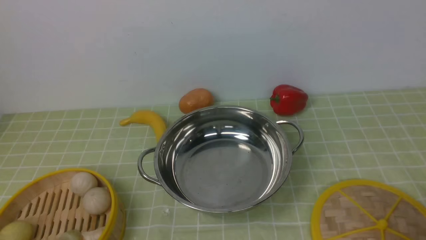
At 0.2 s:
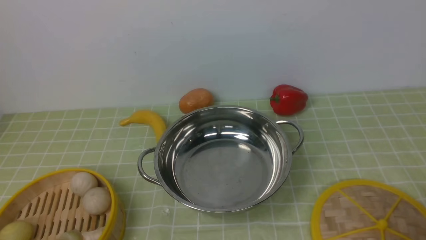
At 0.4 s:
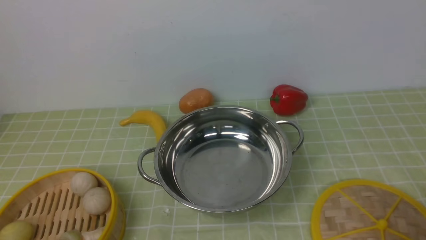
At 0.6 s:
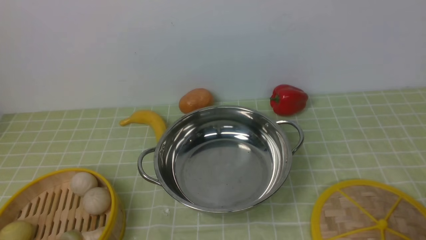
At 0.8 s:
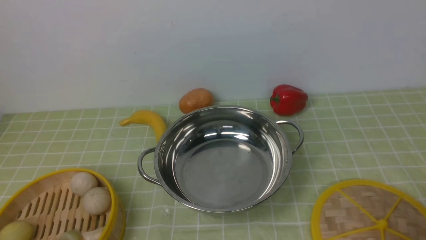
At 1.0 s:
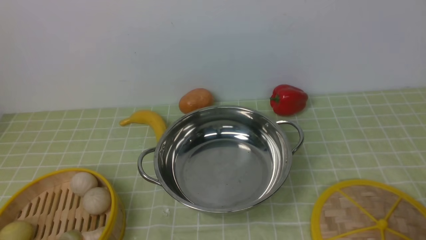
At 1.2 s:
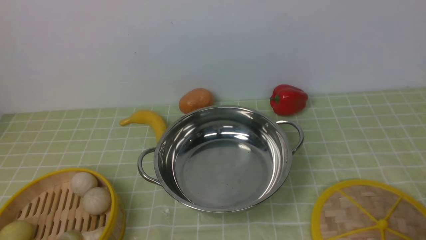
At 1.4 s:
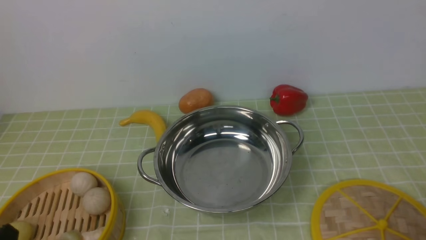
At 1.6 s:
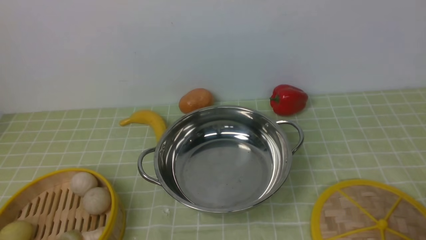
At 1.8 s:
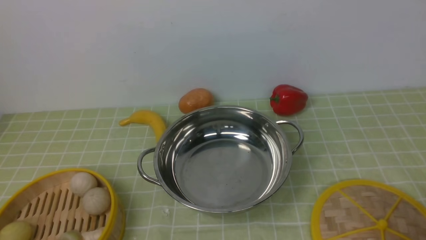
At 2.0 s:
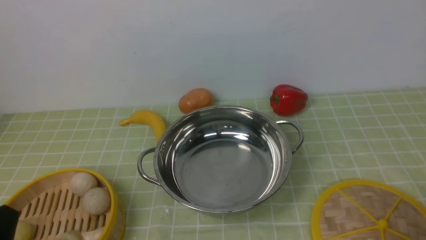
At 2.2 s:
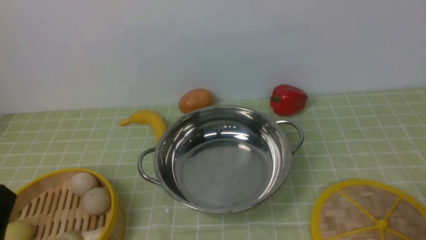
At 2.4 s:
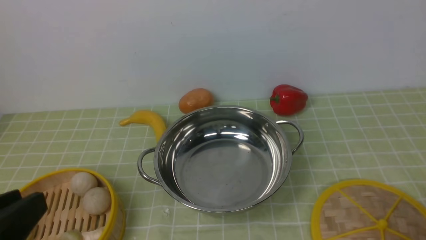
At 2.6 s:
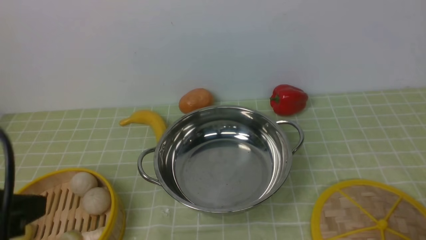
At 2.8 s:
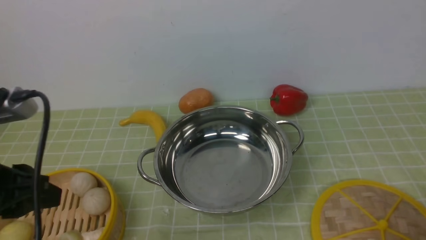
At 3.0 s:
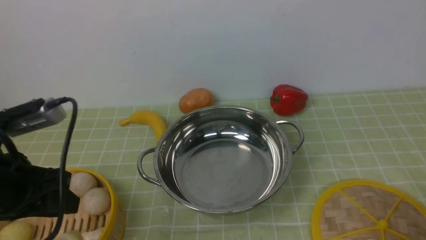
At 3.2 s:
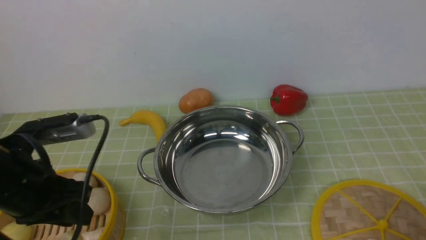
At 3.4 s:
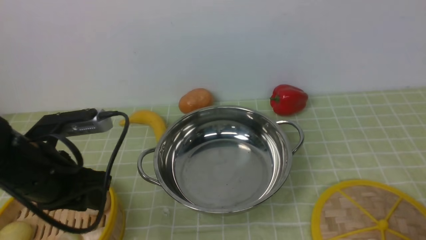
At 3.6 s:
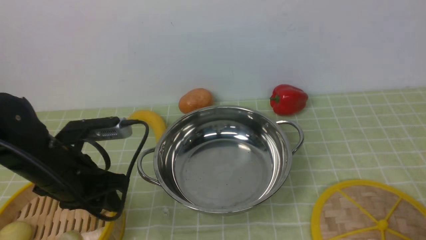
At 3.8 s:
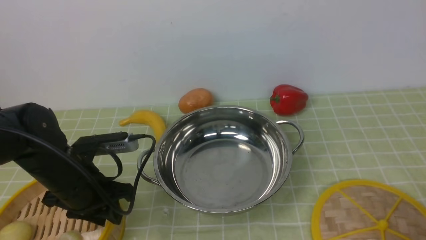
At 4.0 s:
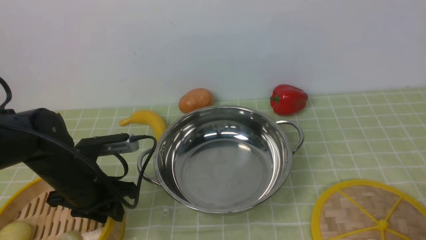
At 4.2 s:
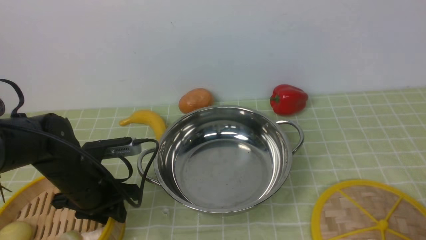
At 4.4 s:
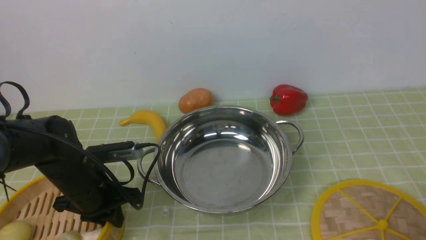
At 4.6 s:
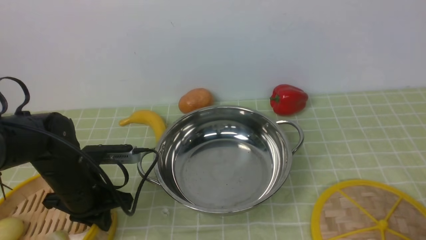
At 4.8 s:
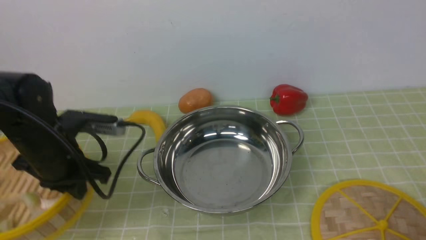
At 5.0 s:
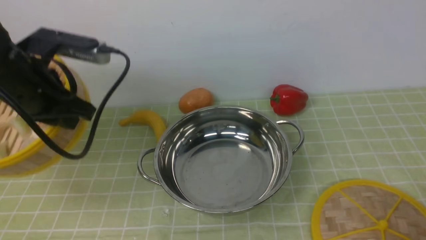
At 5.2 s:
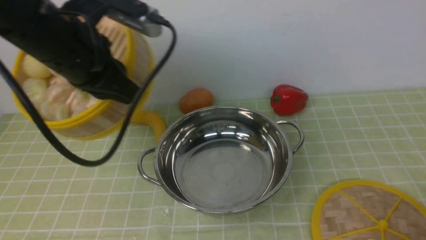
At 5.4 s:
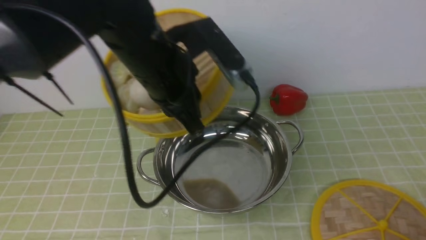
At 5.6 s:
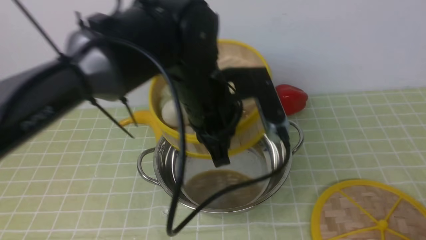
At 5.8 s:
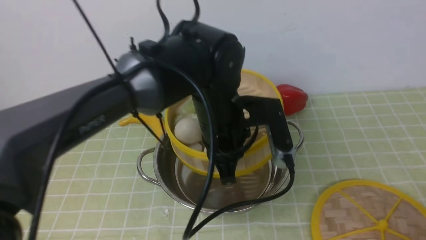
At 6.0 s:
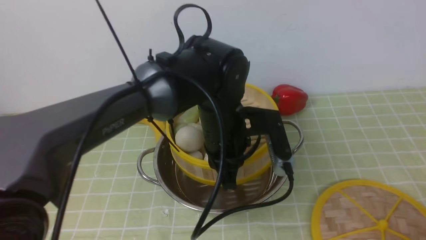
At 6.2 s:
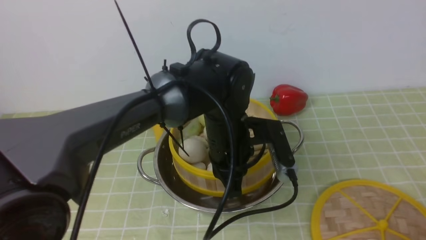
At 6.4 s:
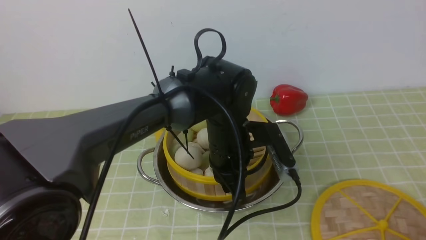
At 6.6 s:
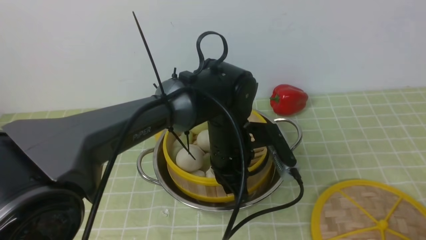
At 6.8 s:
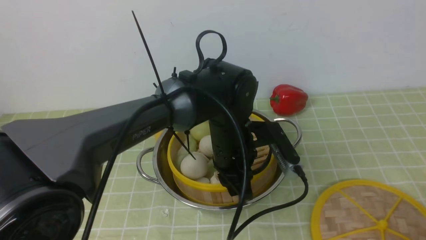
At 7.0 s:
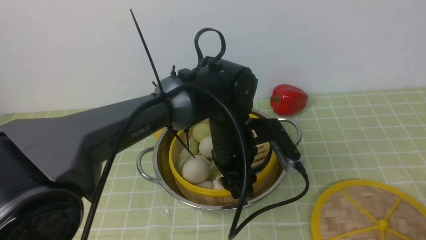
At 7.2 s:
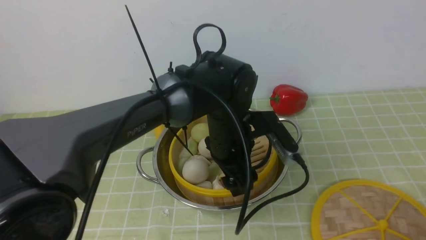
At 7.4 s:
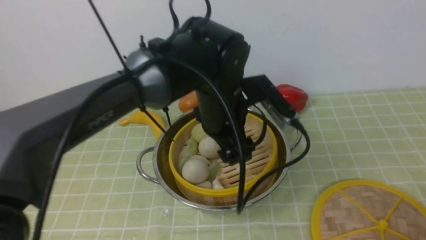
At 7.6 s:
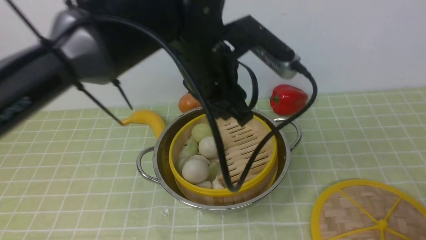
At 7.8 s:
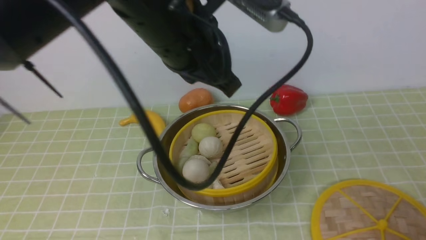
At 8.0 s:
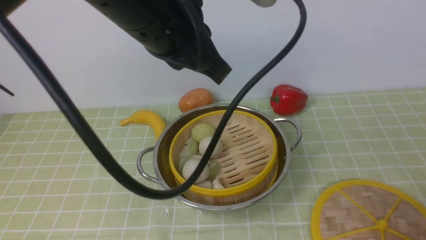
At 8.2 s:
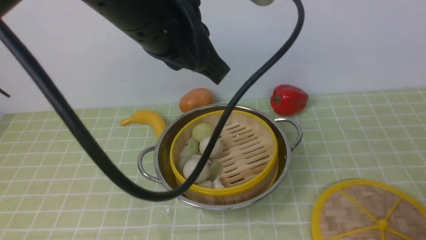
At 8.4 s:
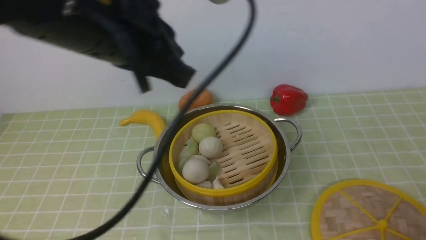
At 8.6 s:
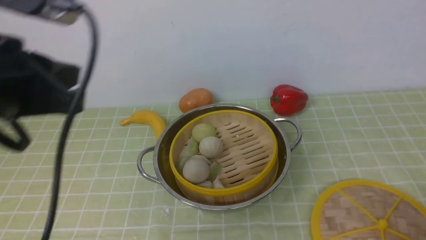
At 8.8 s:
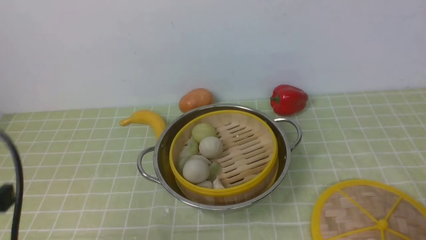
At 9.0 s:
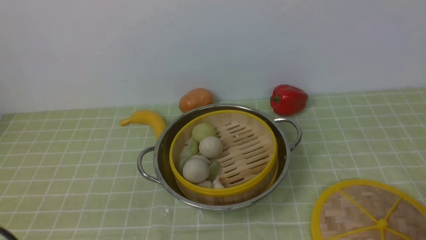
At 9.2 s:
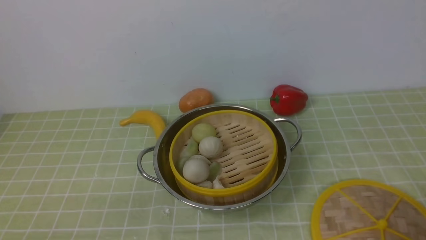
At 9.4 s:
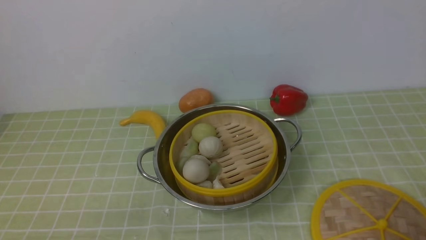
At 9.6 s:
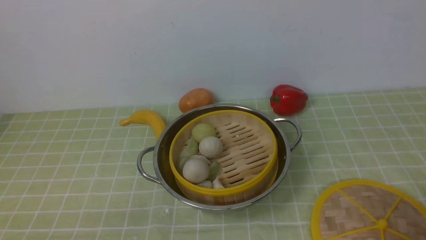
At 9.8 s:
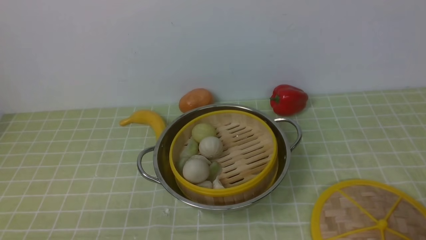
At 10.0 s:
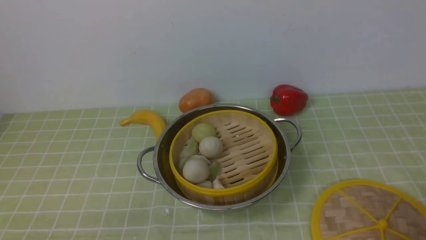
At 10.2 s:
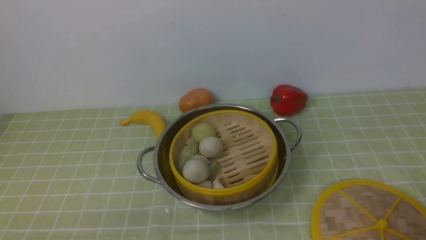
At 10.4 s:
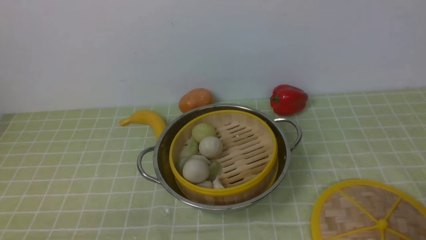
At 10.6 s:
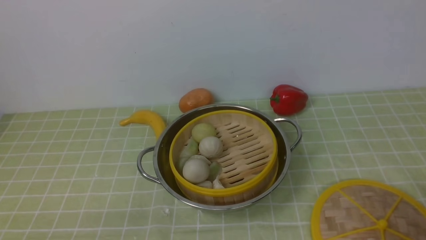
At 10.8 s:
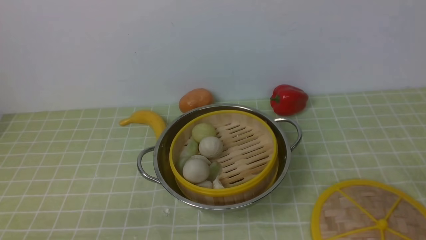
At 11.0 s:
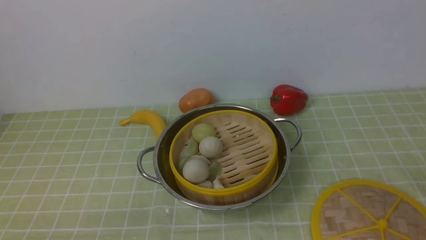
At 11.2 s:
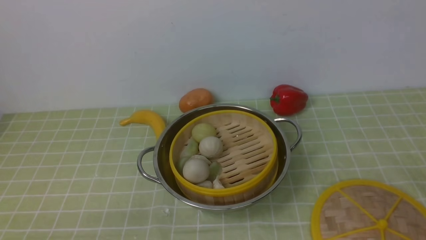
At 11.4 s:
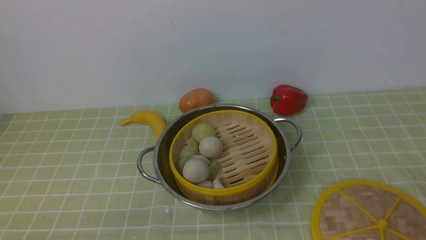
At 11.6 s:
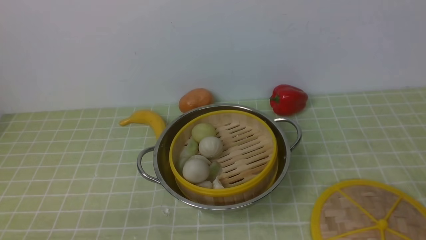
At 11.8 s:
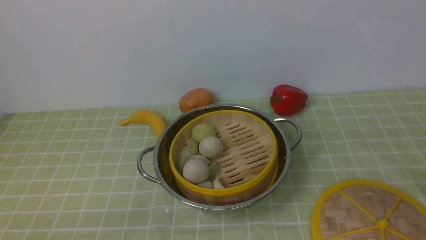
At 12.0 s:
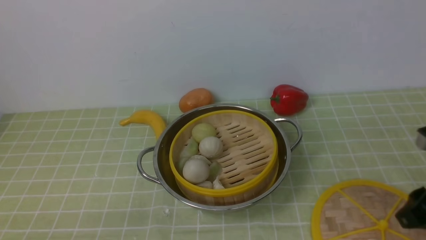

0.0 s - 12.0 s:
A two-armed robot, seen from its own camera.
Task of the whole recording: place the steamer in the pot on the green tablecloth, and put the lid on the steamer.
Step, 0.0 s - 4.8 s: use the left arm to lift the steamer closest to it.
Step, 5.0 s - 7.6 s: use the left arm to put the steamer into the iron steamer pot in the middle.
1.6 s - 3.0 s: The left gripper is displaced forward and upward by roughly 15 cm.
3.0 s - 4.4 s: The left gripper travels downward and forward by about 20 cm.
4.4 s - 6.0 s: The left gripper travels to the right and upward by approximately 25 cm.
6.0 s - 7.6 s: The left gripper moves upward, about 5 cm, and opens up.
7.6 s - 9.0 s: The left gripper is displaced to the left and backward by some 35 cm, and closes up.
10.4 s - 12.0 s: The right gripper heads forward and upward, covering about 15 cm.

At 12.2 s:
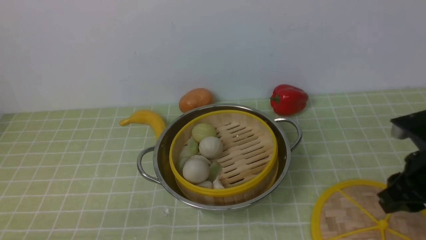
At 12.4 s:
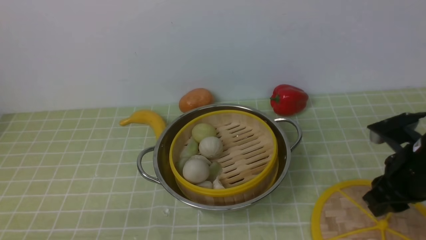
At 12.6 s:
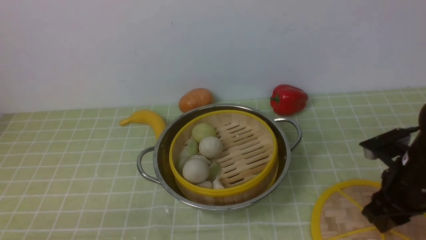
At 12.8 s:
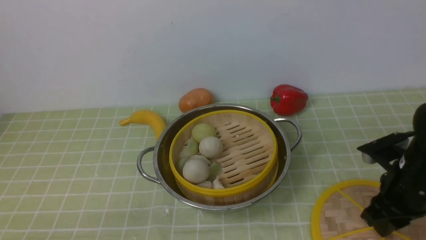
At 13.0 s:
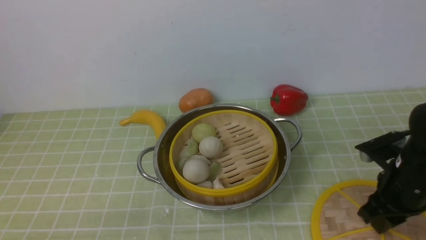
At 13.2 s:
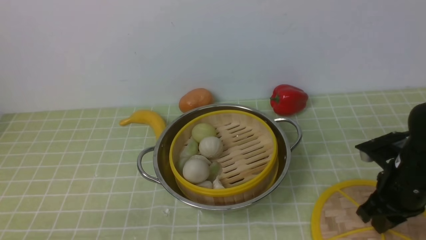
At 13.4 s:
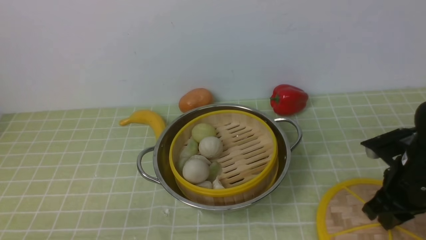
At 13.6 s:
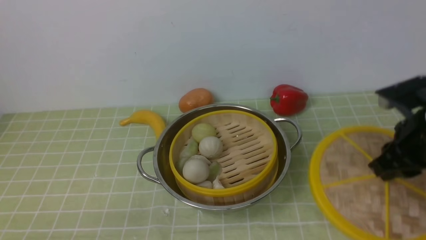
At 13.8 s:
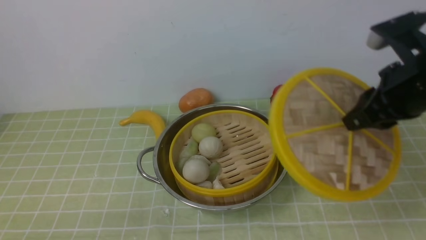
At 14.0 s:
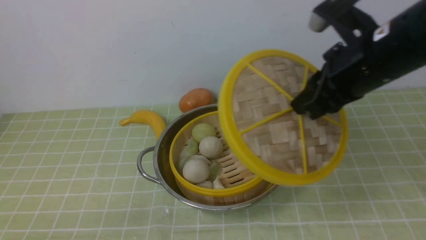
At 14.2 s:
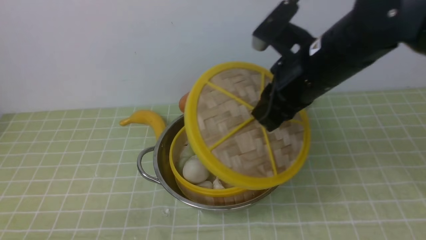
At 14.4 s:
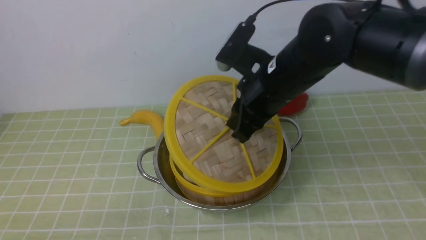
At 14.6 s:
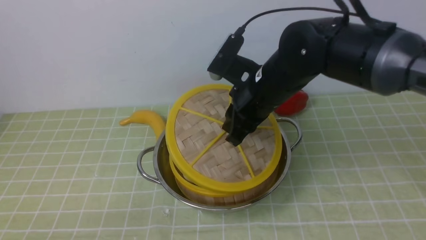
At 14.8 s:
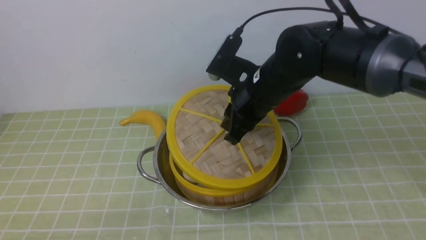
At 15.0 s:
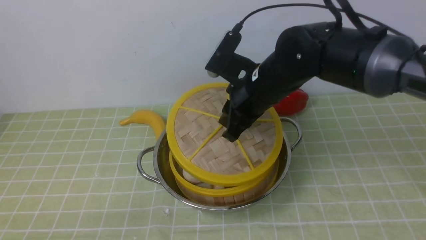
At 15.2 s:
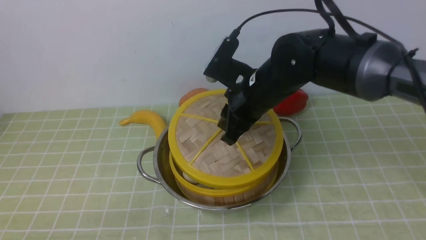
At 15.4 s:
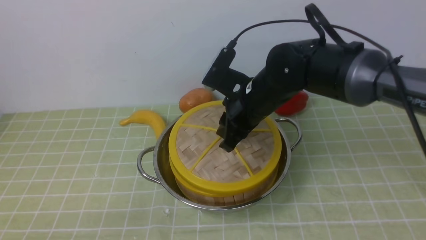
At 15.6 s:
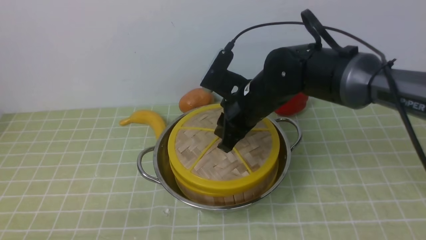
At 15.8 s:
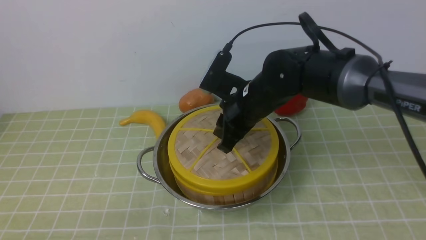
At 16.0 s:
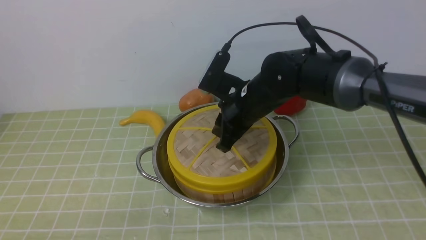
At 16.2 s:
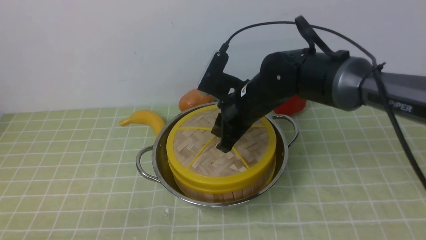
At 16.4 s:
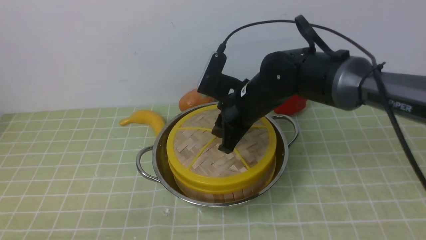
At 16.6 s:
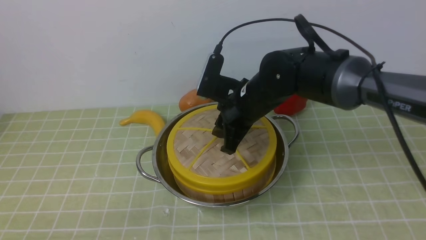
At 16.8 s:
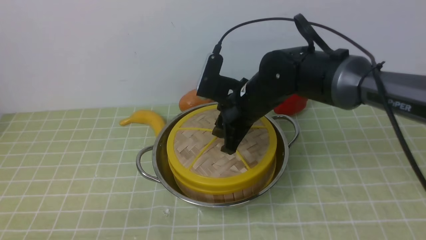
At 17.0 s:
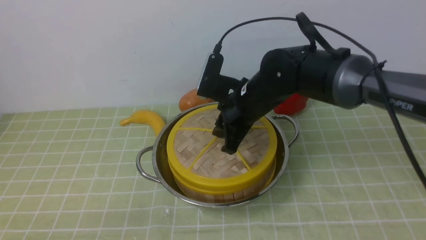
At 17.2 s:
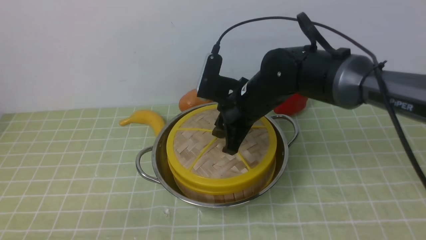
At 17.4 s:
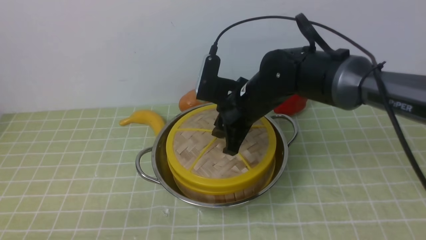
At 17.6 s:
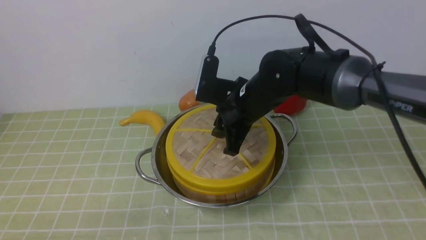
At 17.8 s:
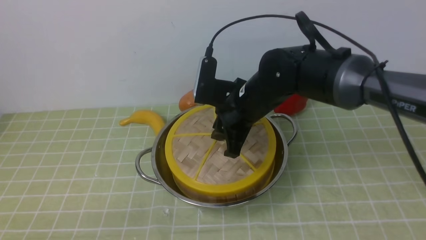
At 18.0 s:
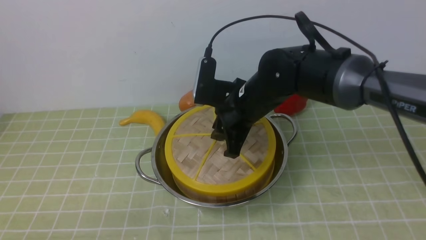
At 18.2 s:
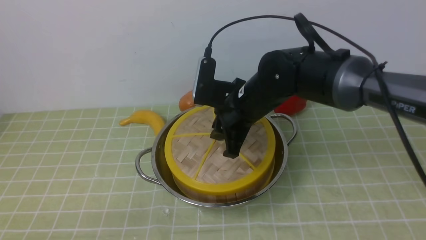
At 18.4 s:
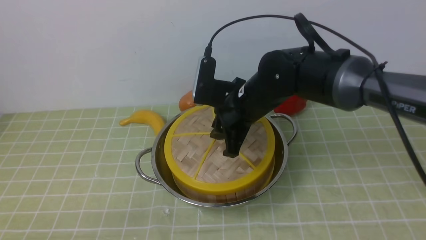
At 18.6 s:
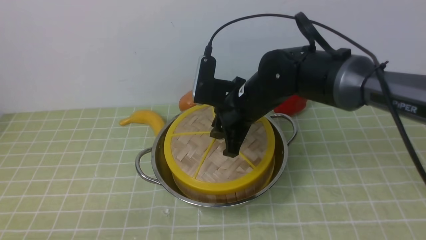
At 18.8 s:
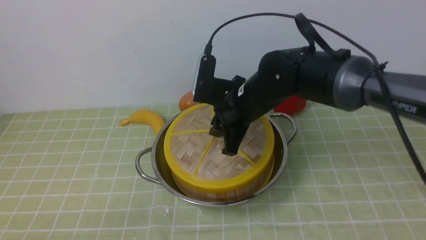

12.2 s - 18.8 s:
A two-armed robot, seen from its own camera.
Task of the whole recording: place the steamer in the pot on the green tablecloth, and put the lid on the steamer.
12.2 s - 13.8 s: The right gripper moves upward and forward, some 10 cm.
13.8 s - 15.4 s: The right gripper is displaced to the left and forward by some 20 cm.
15.4 s - 18.8 s: There are only small adjustments of the grippers.
